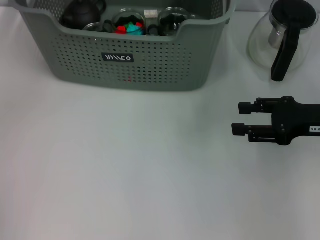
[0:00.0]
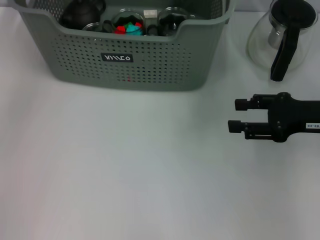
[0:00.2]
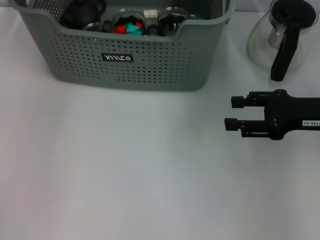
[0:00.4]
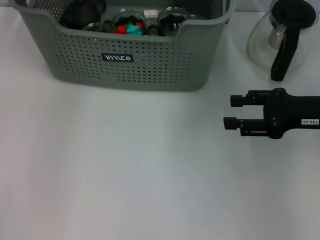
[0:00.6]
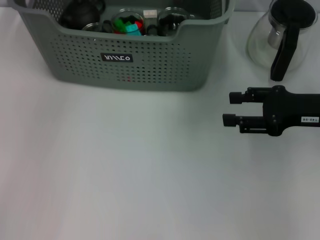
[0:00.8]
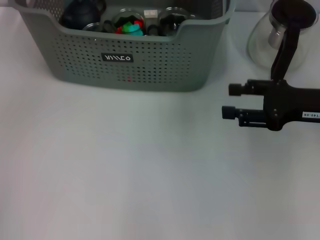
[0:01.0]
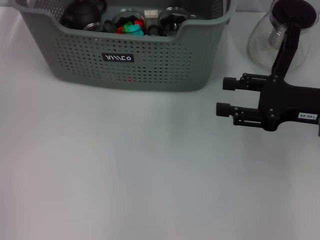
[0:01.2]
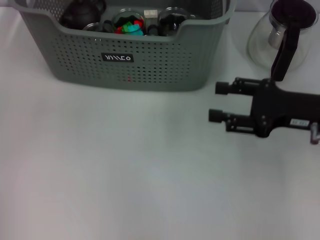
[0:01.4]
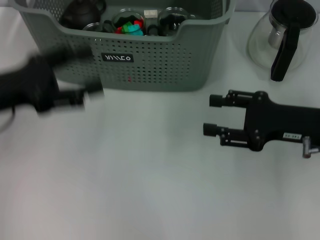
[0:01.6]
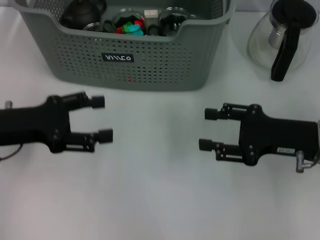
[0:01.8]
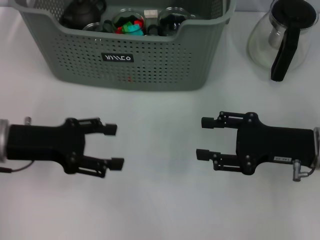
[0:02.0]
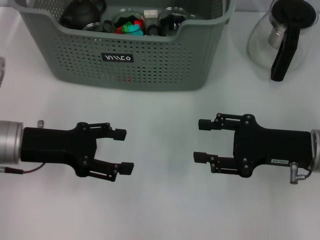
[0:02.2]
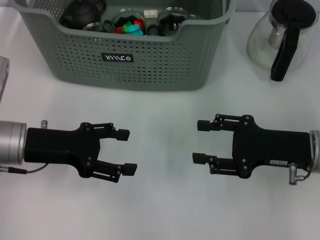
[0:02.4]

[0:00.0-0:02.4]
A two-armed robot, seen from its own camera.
Task of the whole recording: pick up the teacup on the table and place it into the storage bin, pick up the block on the table and place it into the storage bin.
0:01.2 to 0:02.4: The right gripper shifts by approximately 5 cm; the left gripper moves downward and backward, roughly 15 cm.
